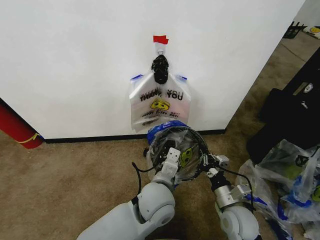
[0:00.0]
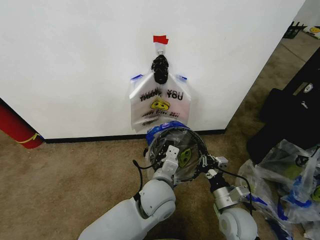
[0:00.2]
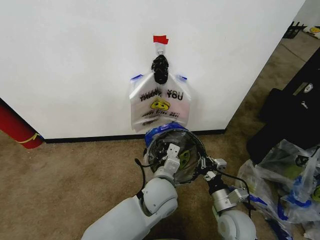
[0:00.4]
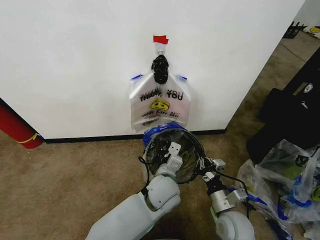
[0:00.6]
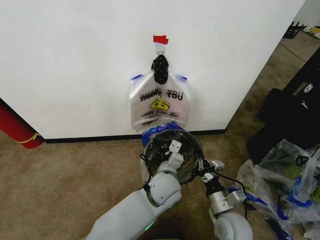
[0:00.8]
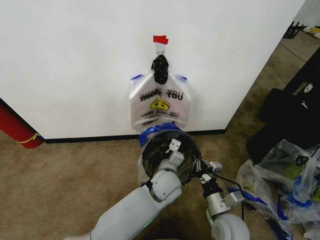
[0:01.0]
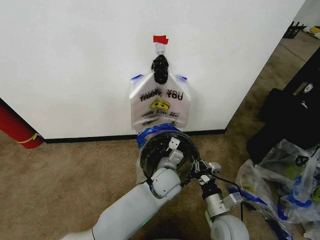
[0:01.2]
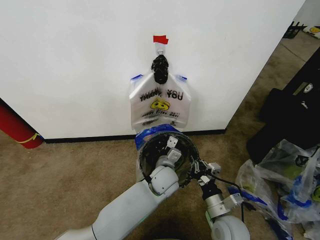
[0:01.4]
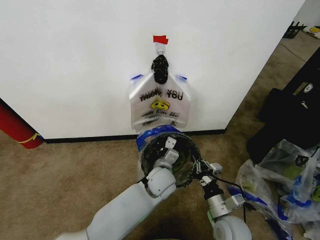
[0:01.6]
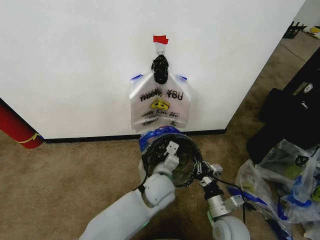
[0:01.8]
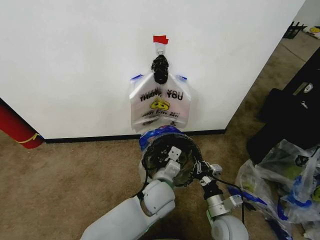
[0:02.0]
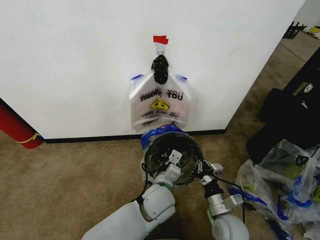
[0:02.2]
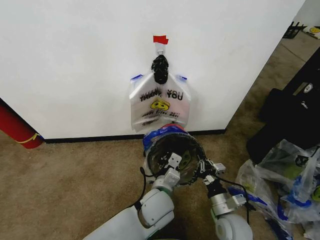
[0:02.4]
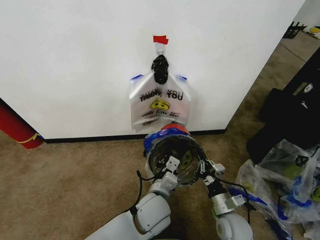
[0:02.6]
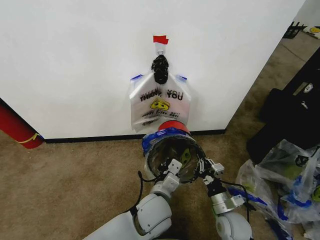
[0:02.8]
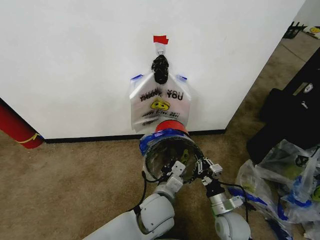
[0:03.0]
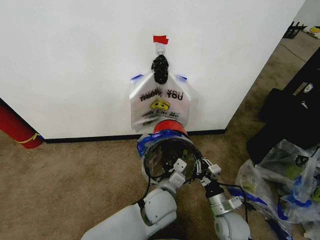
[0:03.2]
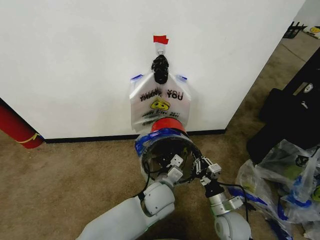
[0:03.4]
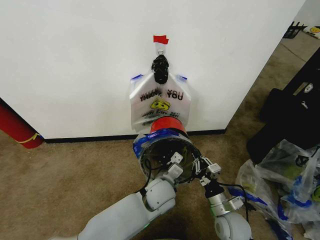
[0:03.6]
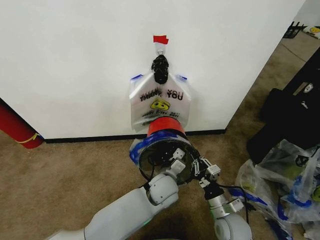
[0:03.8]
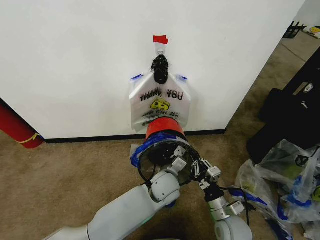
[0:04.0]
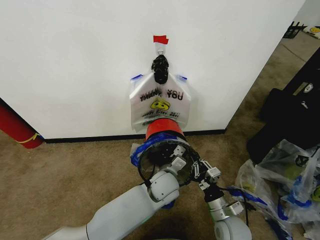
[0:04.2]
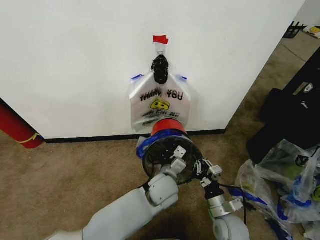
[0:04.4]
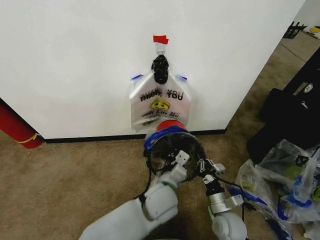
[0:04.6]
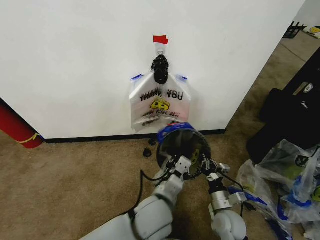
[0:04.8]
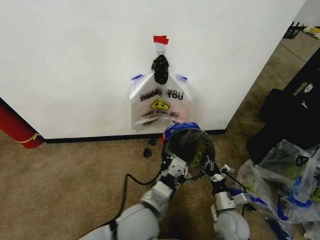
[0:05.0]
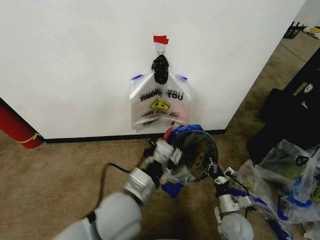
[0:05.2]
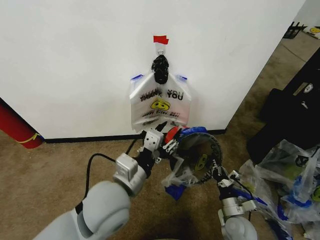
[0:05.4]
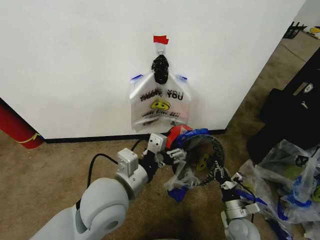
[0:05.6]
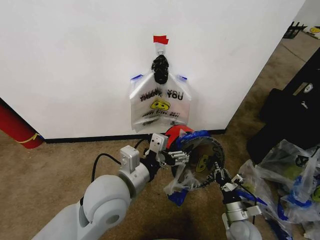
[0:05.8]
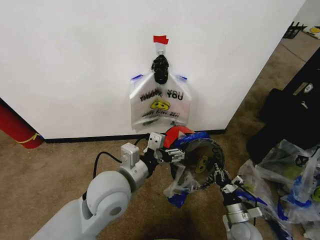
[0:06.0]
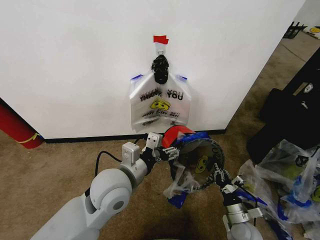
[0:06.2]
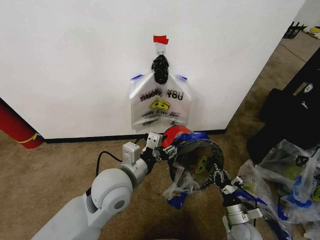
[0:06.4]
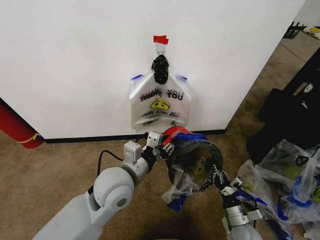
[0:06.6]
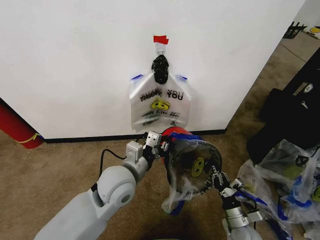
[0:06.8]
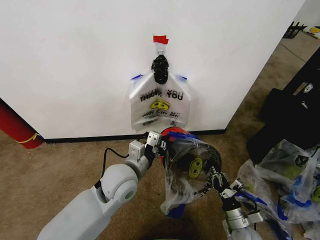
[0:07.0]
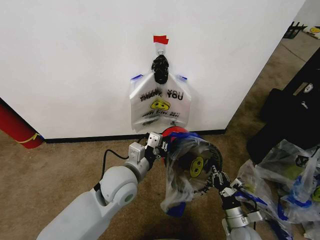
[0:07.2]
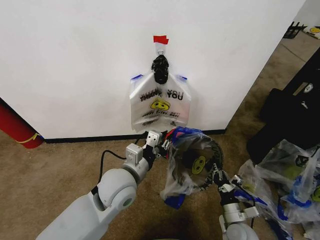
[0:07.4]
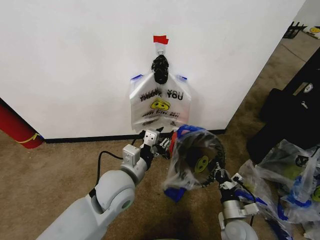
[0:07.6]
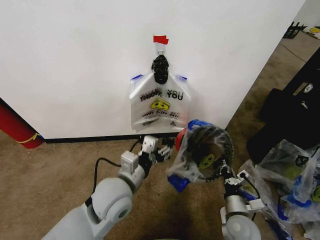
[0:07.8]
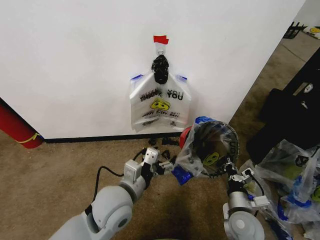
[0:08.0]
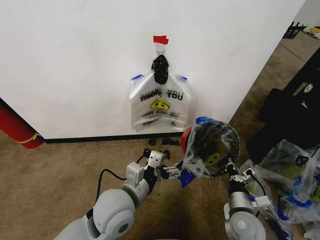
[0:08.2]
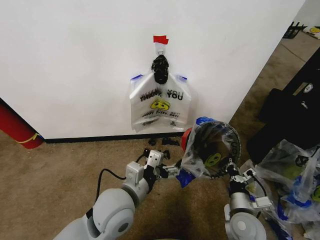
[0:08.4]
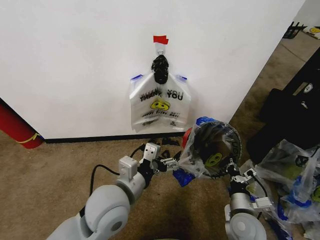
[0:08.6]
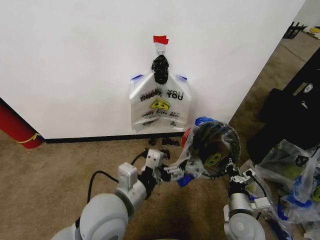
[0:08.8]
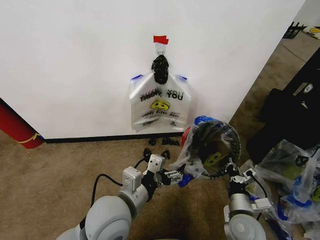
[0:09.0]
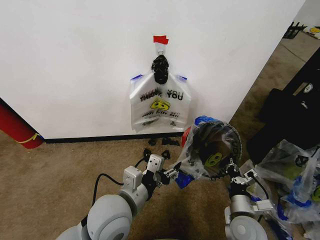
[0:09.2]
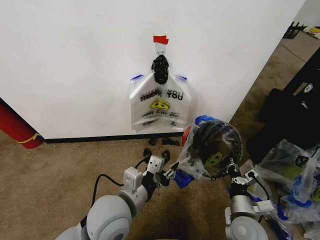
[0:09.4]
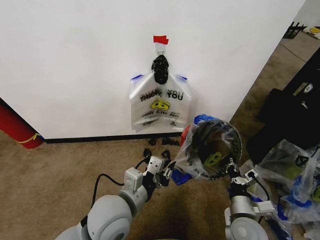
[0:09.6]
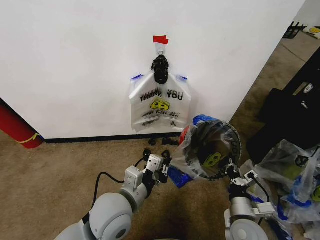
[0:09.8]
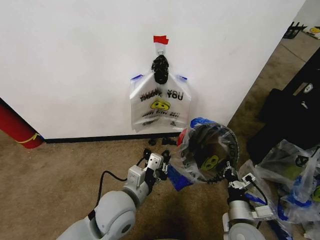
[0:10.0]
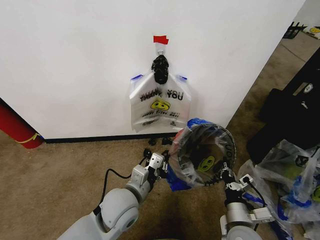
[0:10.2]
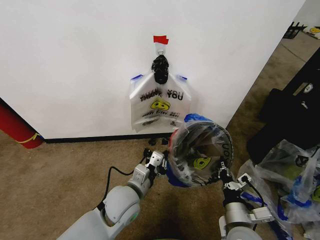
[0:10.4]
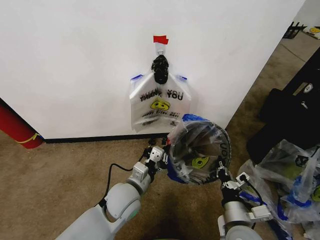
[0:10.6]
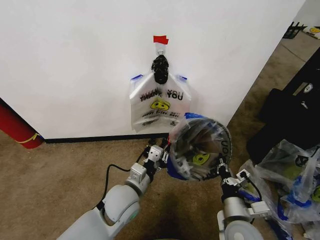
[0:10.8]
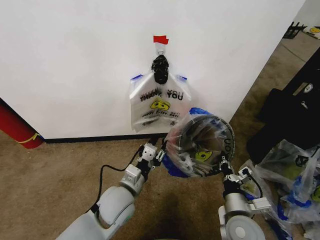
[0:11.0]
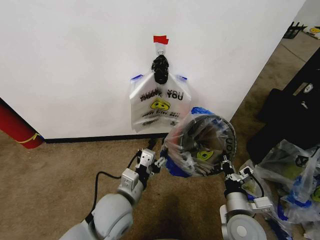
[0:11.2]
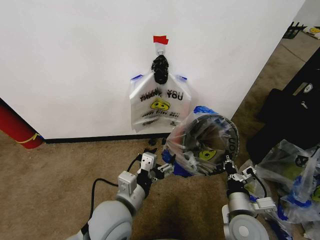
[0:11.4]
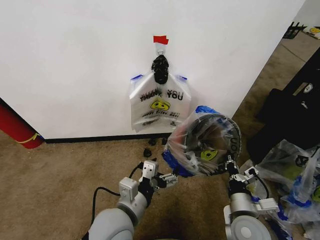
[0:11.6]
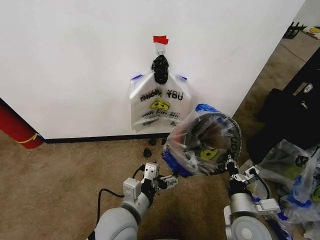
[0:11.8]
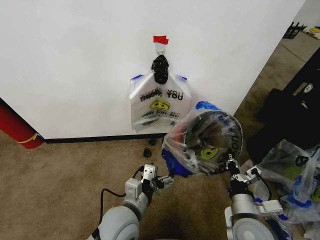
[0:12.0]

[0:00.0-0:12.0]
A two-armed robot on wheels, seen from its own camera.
Task of the whole recording: Pick up the garbage bag from the wall and place it over the trash bin.
0.0 to 1.6 s: The left gripper moves forward and downward, about 10 cm.
1.6 to 3.0 s: The left gripper goes some 10 cm backward.
3.0 to 4.4 s: The left gripper moves forward, approximately 5 cm.
4.4 to 6.0 s: The right gripper goes some 10 cm to the right and downward. Meanwhile the left gripper moves upward, to the left and backward, roughly 20 cm, and opens up.
6.0 to 7.6 s: The left gripper closes its fingers.
7.6 to 9.0 s: The left gripper heads backward, covering some 5 cm, and opens up. Meanwhile the right gripper travels upward by roughly 5 cm.
9.0 to 10.4 s: The left gripper heads downward and forward, covering roughly 10 cm, and closes; the right gripper ends up approximately 5 cm from where it was.
10.4 to 12.0 s: The left gripper travels backward by some 5 cm, and opens up.

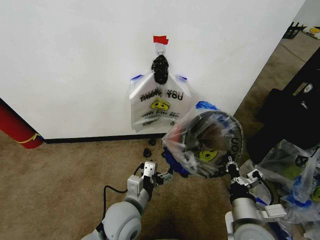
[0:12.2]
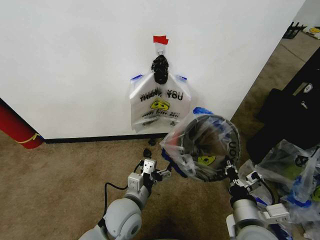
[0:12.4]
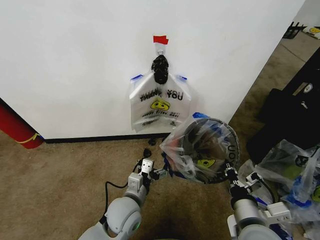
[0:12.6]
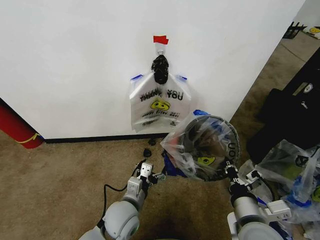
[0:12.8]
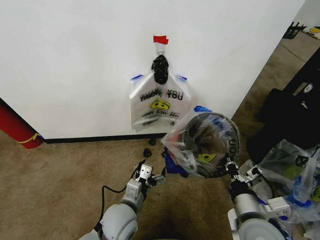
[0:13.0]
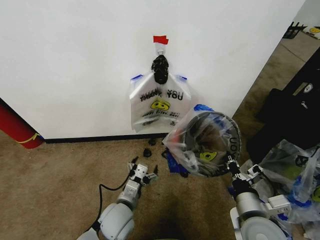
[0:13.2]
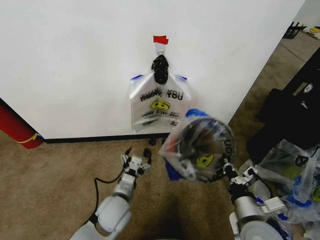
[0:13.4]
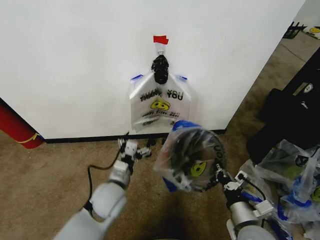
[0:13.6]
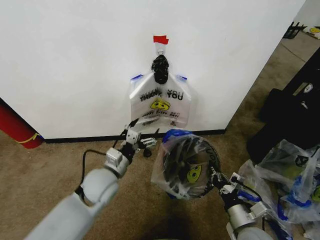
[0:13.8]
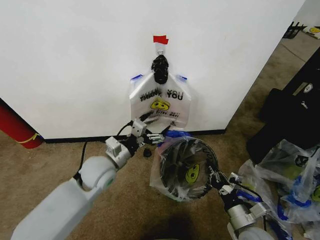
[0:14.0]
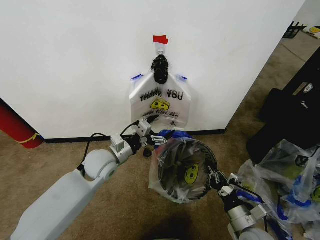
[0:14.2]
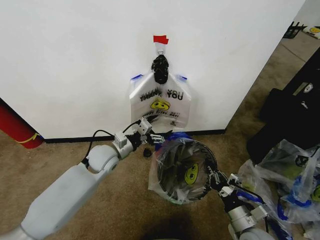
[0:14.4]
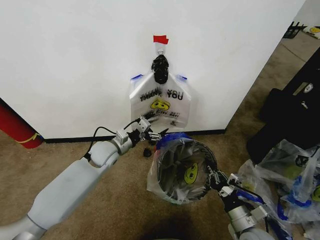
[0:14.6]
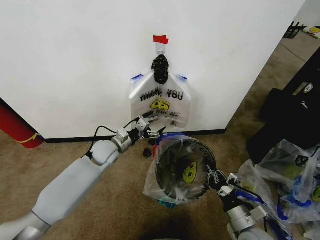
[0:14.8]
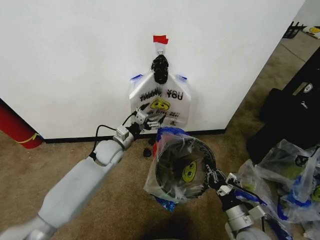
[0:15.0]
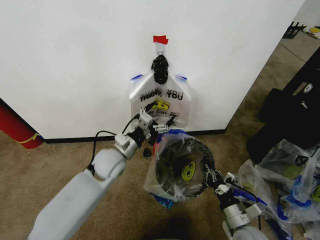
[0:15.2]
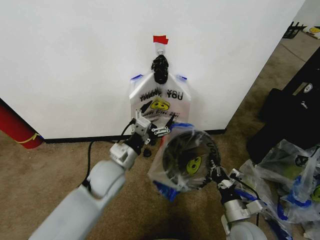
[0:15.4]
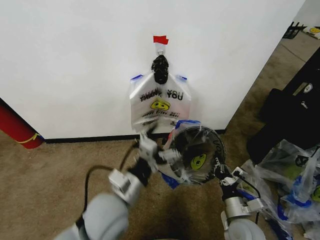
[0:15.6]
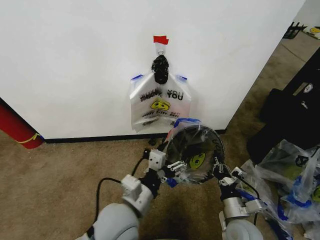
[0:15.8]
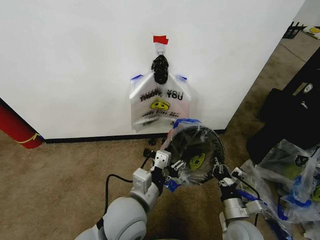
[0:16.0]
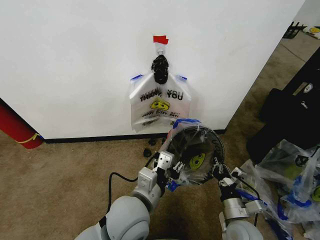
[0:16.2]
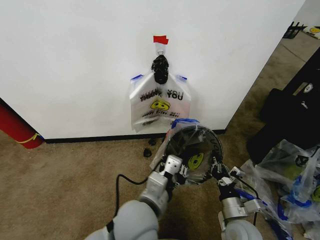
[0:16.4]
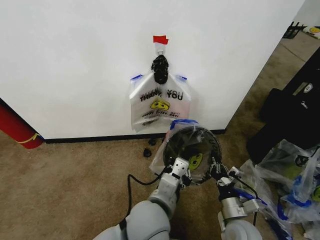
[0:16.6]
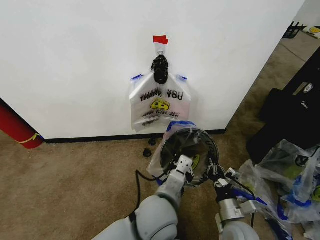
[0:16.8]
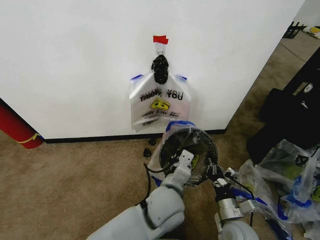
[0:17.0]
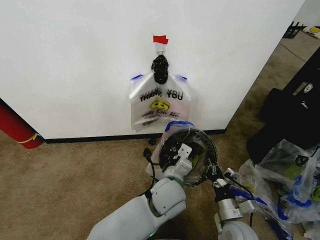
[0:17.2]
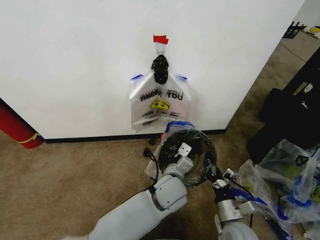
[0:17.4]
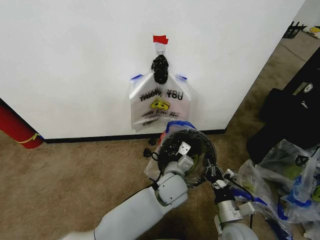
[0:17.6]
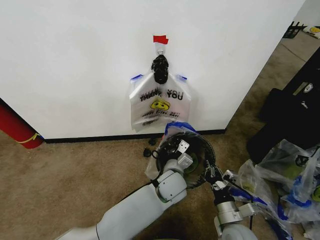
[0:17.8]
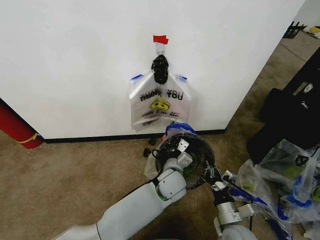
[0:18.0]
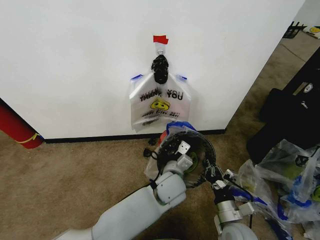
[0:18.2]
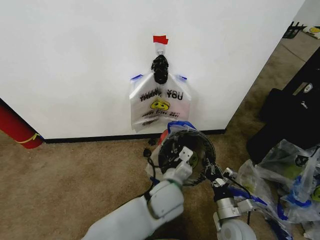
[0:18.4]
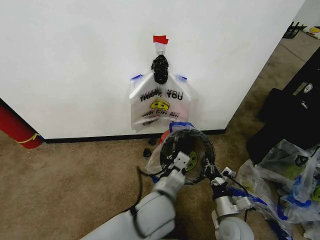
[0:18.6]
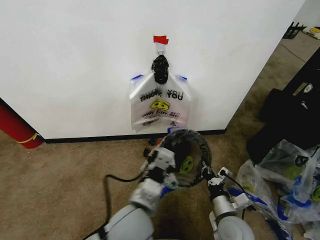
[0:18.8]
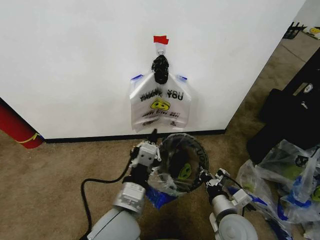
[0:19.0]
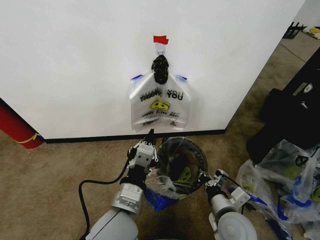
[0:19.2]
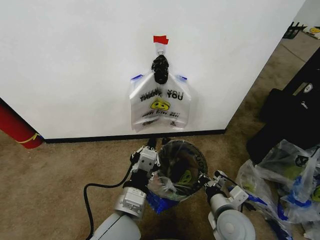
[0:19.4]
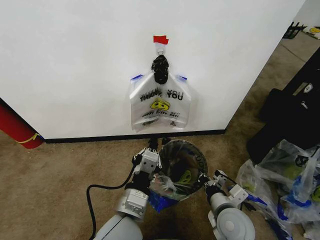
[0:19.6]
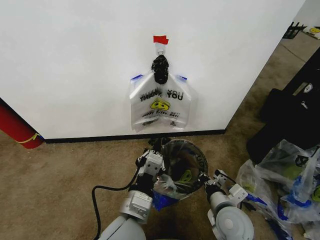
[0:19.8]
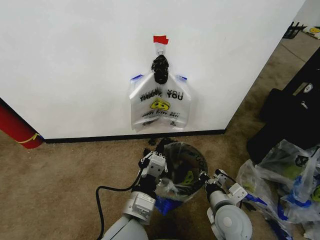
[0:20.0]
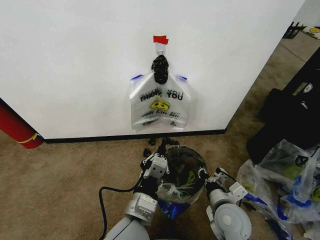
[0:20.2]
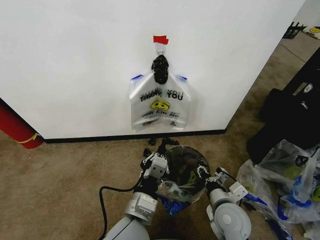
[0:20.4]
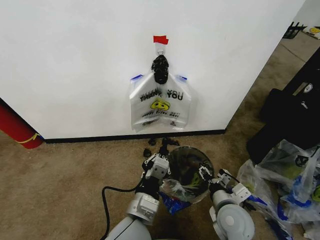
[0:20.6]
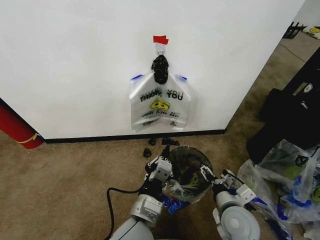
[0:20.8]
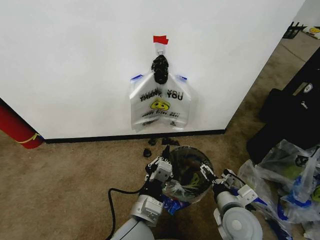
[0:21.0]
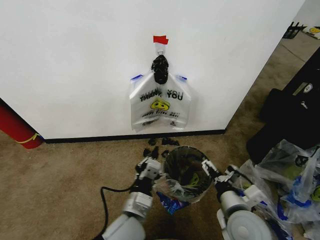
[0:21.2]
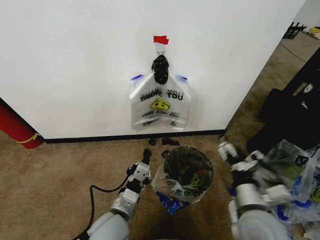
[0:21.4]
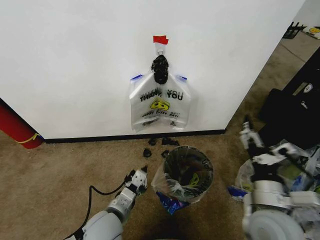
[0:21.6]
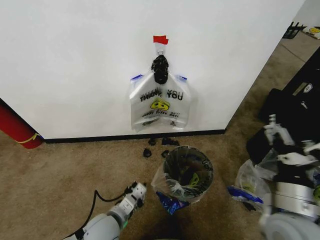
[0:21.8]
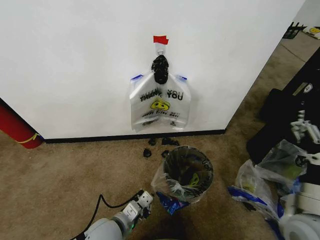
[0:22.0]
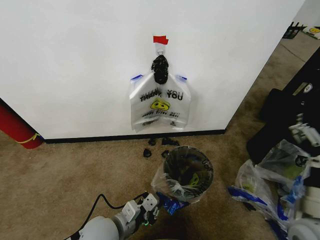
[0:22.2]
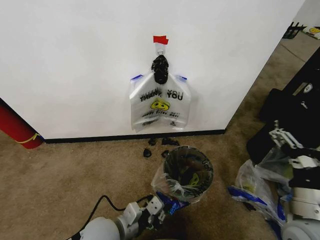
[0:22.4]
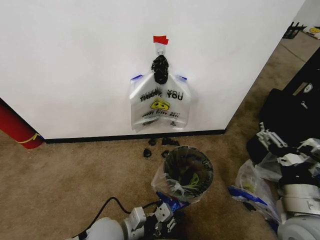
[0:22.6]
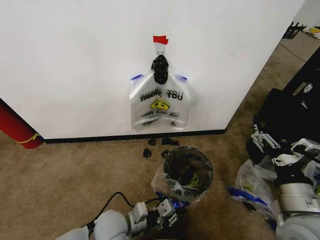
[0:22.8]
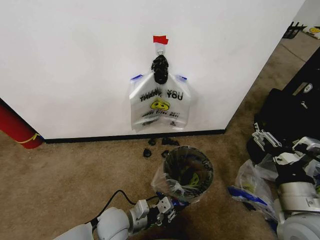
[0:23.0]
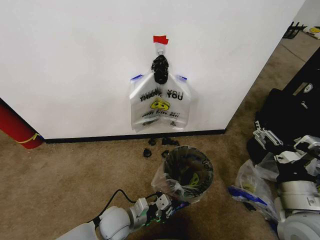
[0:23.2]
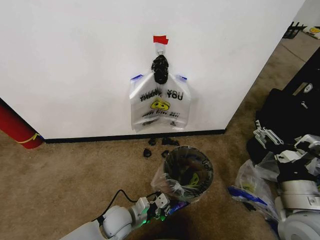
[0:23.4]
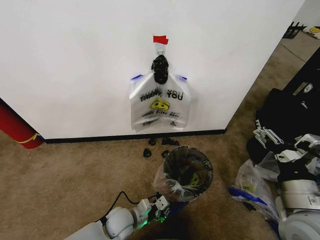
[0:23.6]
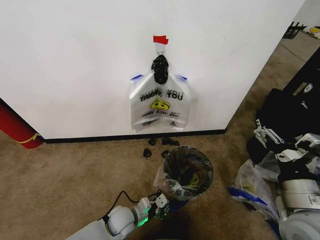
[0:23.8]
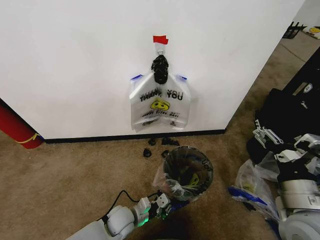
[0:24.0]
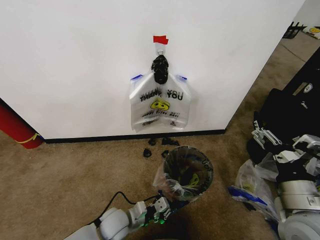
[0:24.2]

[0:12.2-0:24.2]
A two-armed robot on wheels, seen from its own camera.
Task of the whole recording: Pick up the garbage bag from the wall and place it over the trash bin.
12.2 to 13.8 s: The right gripper is displaced downward by some 5 cm; the left gripper moves forward and to the left, some 10 cm.
13.8 to 15.2 s: The left gripper moves forward, roughly 5 cm.
15.2 to 16.6 s: The left gripper moves backward and to the right, roughly 20 cm, and closes its fingers.
16.6 to 18.2 s: The left gripper moves forward, downward and to the right, some 15 cm.
18.2 to 19.8 s: The left gripper goes roughly 20 cm backward, to the left and upward, while the right gripper goes approximately 5 cm upward.
19.8 to 21.2 s: The right gripper opens up.
21.2 to 22.6 s: The right gripper is displaced upward and to the right by about 10 cm, while the left gripper is displaced to the left by approximately 5 cm.
22.6 to 24.2 s: The left gripper moves downward and forward, approximately 10 cm.
